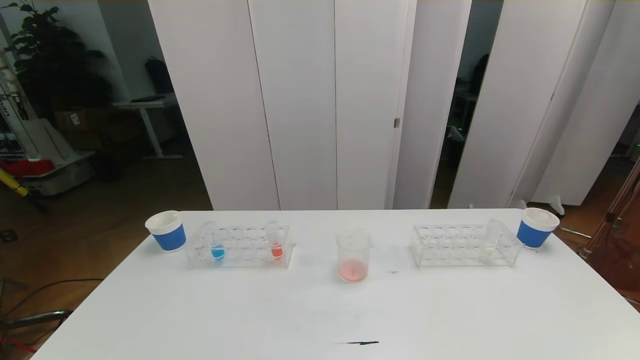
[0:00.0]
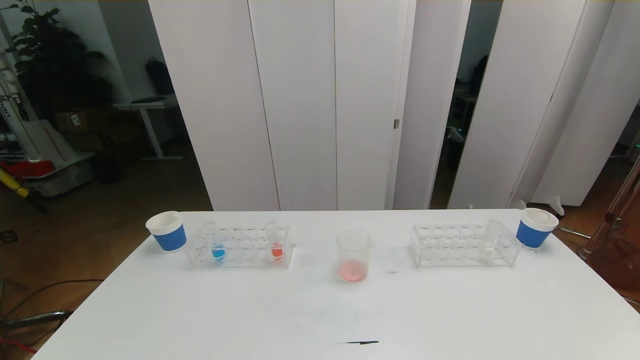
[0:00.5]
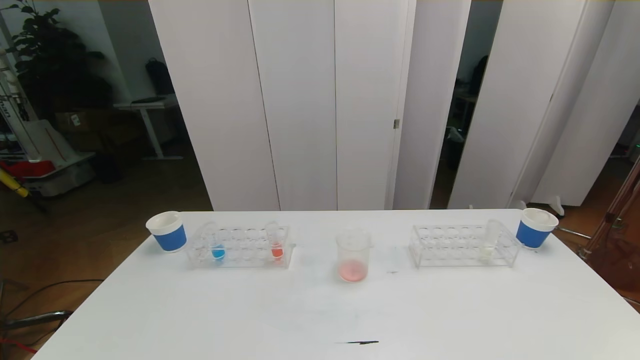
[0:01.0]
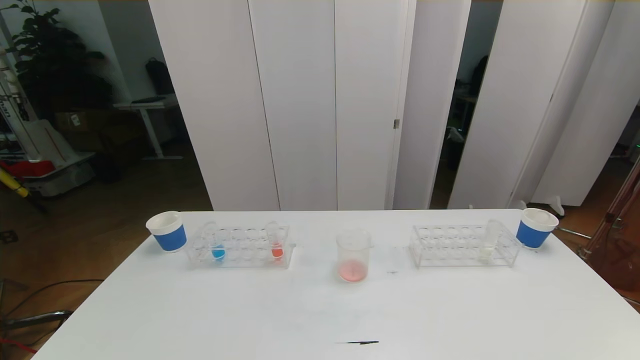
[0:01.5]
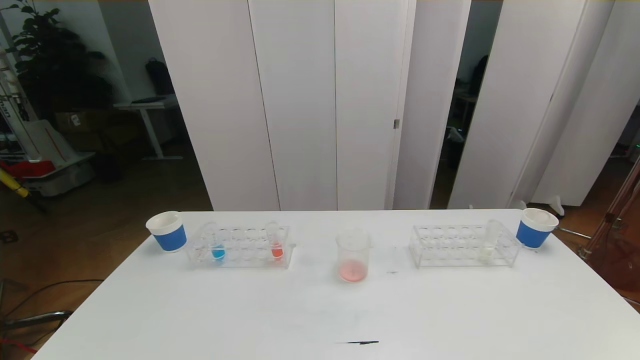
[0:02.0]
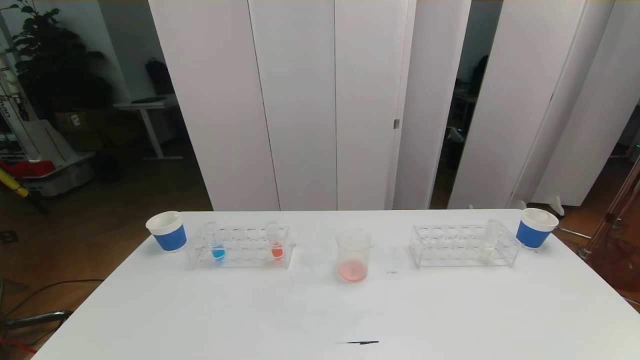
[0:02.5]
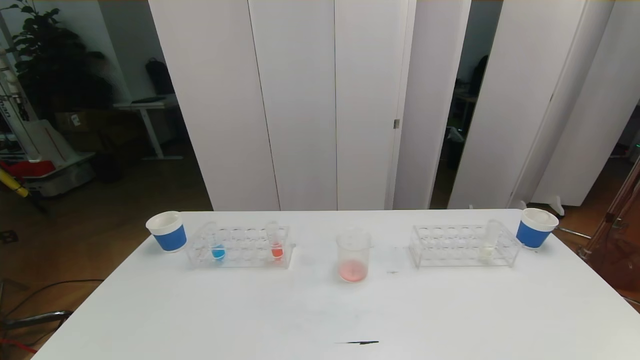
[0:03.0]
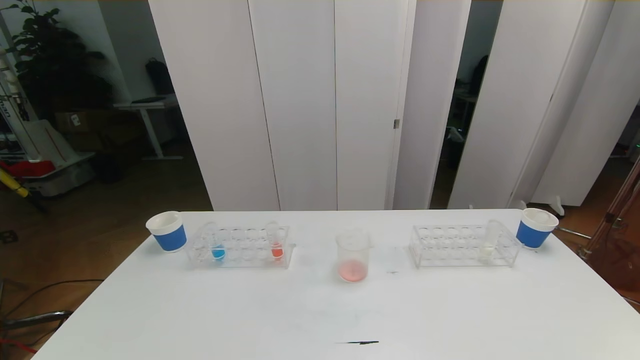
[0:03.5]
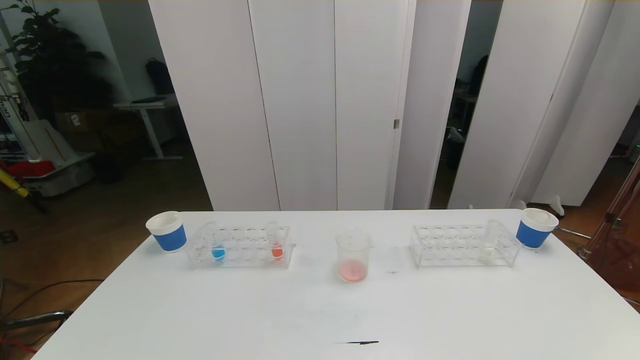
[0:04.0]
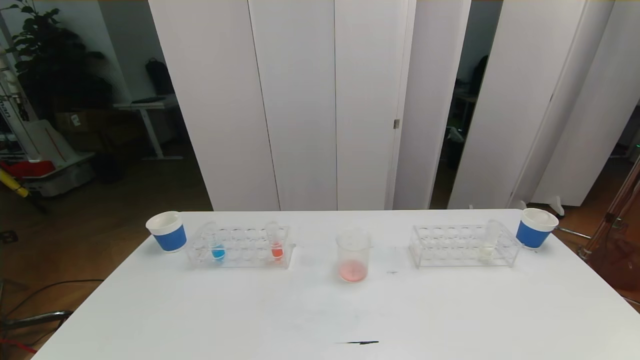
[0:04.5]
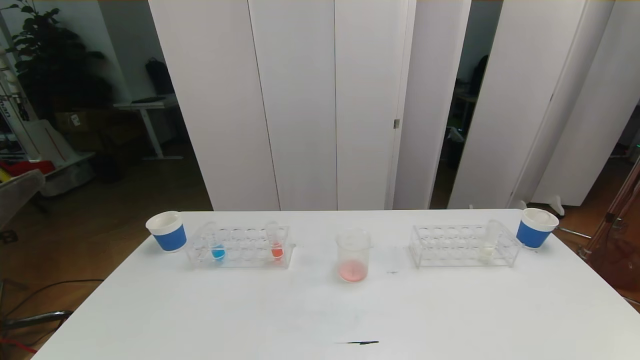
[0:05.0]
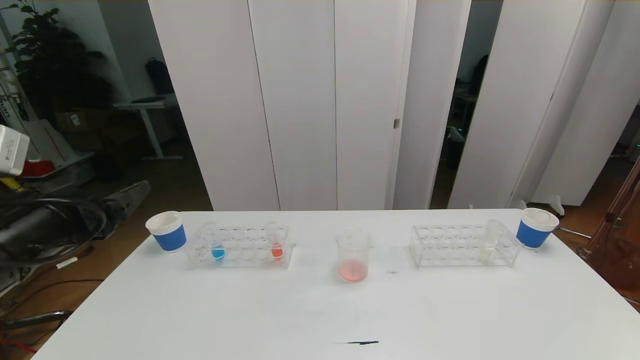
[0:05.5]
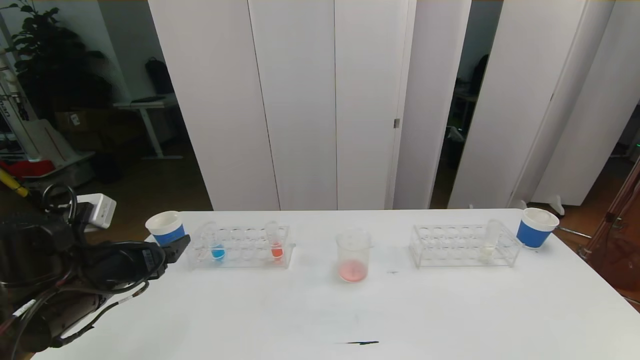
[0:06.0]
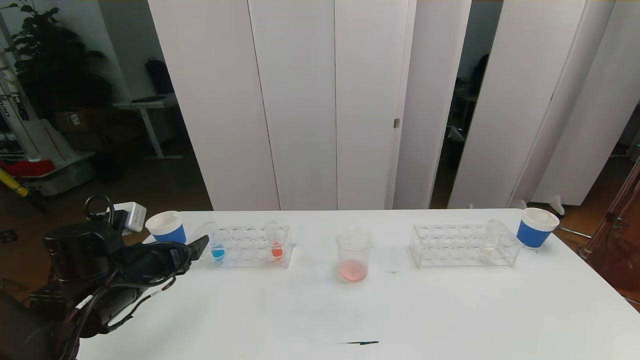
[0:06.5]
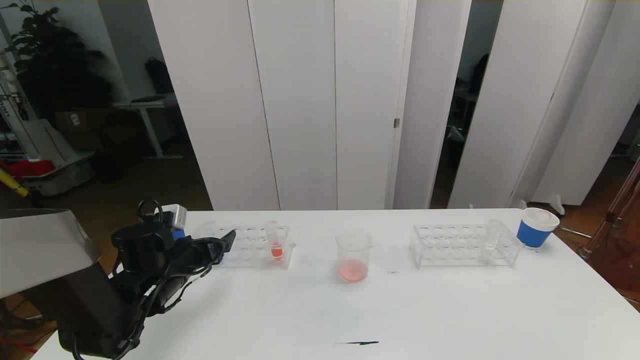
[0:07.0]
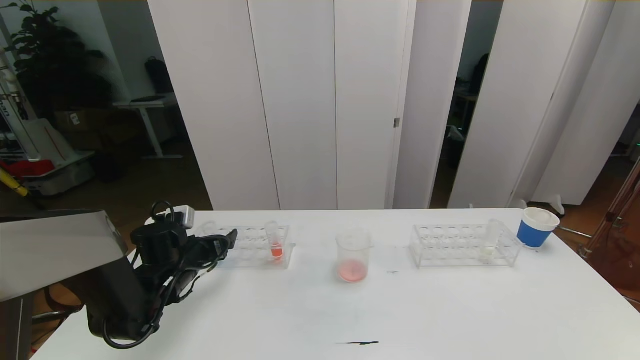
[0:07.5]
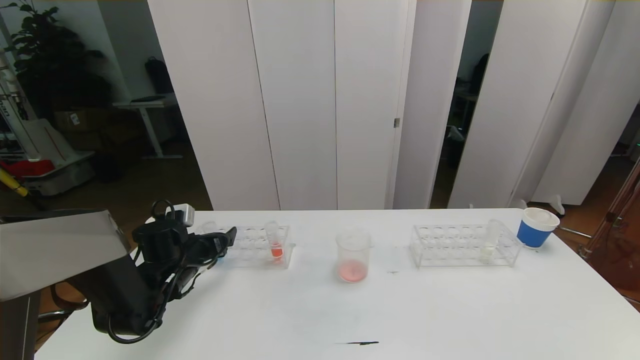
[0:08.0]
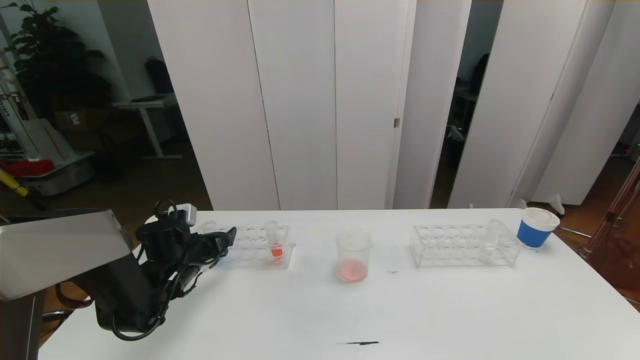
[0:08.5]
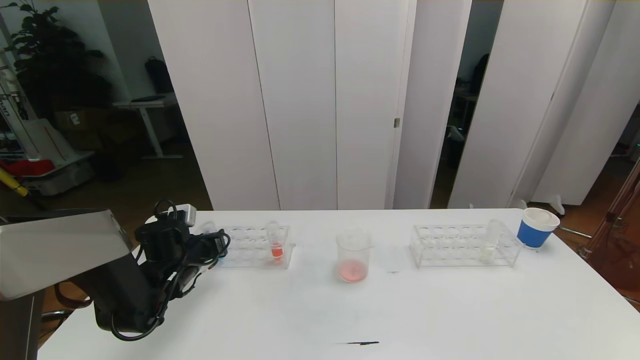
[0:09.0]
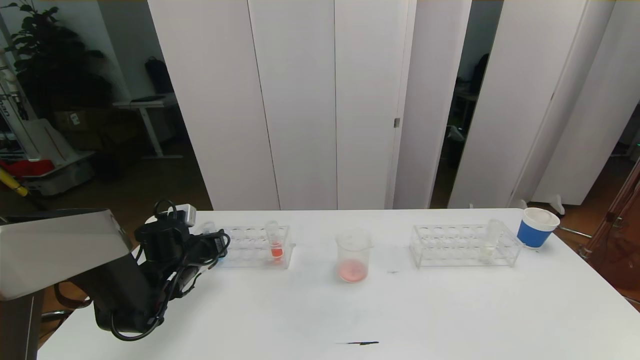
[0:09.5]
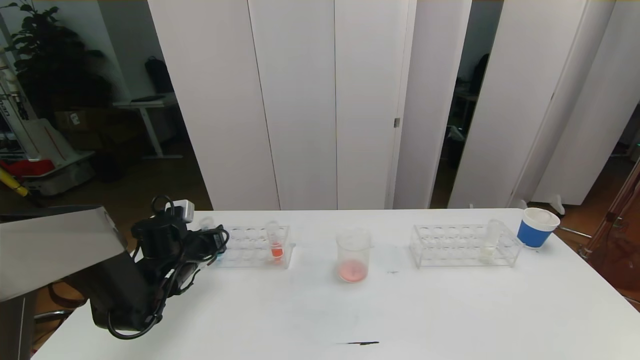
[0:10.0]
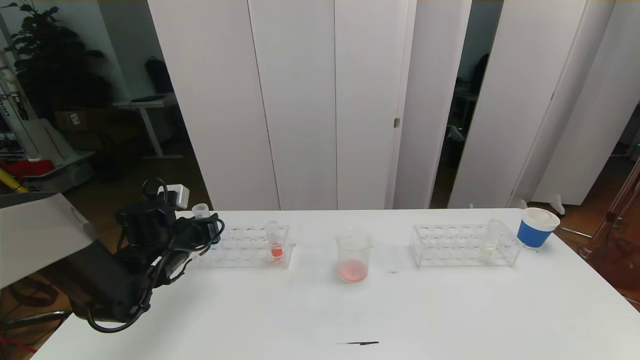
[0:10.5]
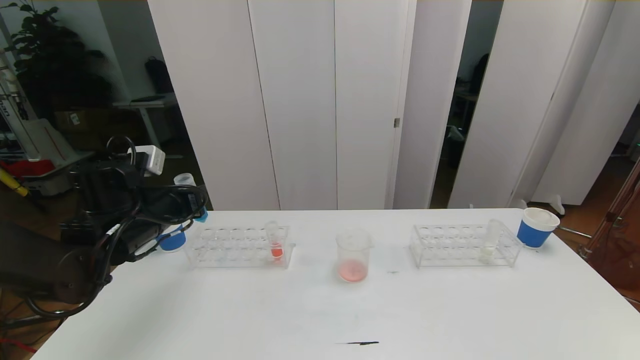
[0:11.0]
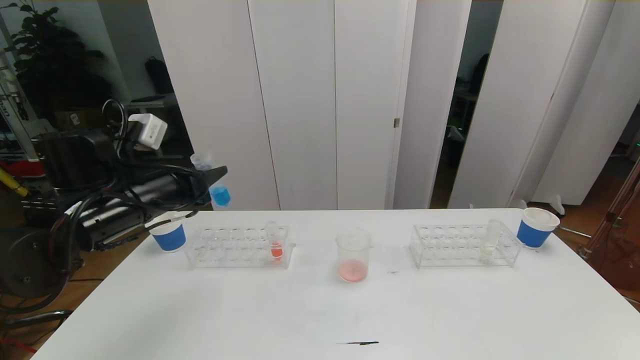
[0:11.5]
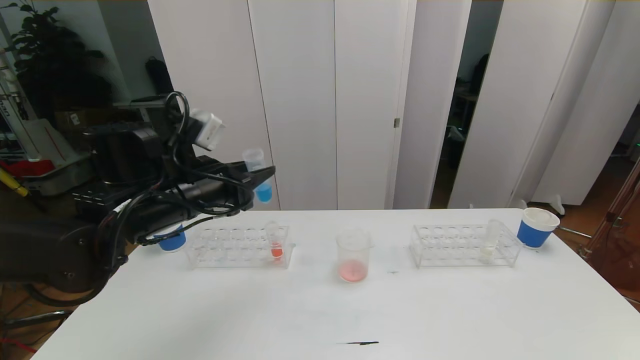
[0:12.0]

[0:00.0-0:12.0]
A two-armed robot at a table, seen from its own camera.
Task of the whole recording: pick up the test tube with red pigment the test tube with blue pigment and the test tube with white pigment by grippers and pour them into the beaker.
4.0 to 6.0 s: The left gripper moves forward, about 25 cm.
6.0 to 8.0 s: The left gripper moves forward and downward, about 15 cm.
8.0 to 10.0 s: The left gripper closes up.
10.0 to 12.0 s: The left gripper shifts approximately 20 cm upward and to the right.

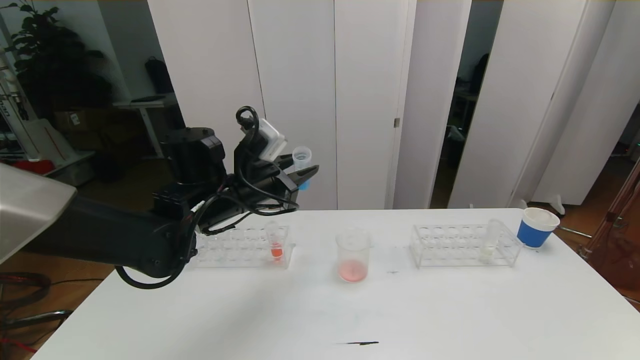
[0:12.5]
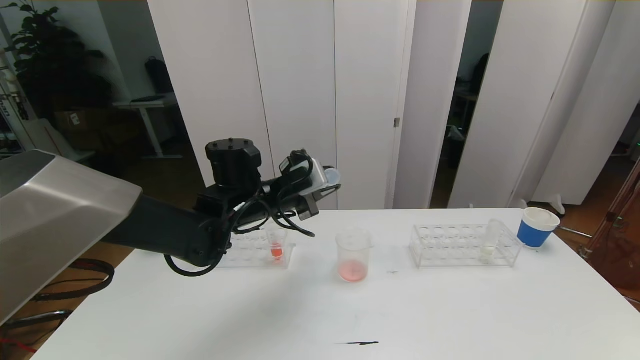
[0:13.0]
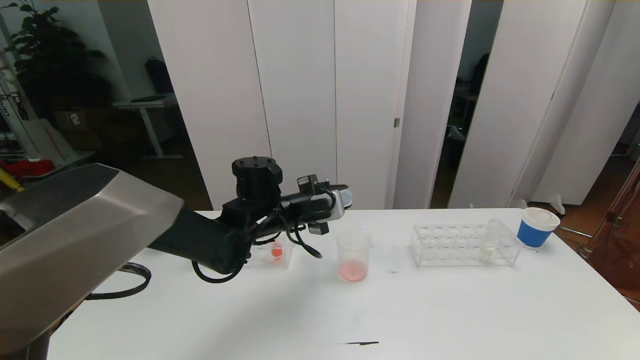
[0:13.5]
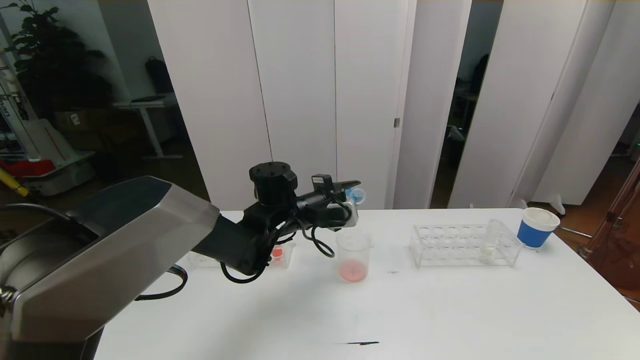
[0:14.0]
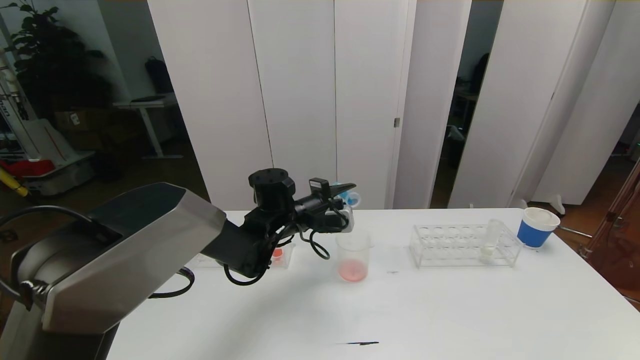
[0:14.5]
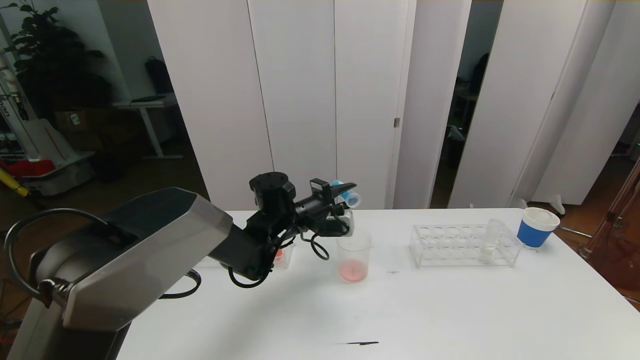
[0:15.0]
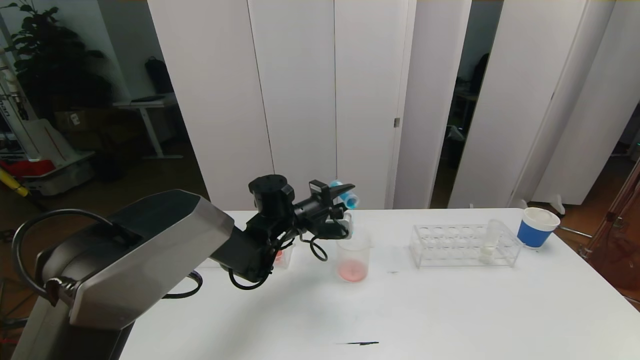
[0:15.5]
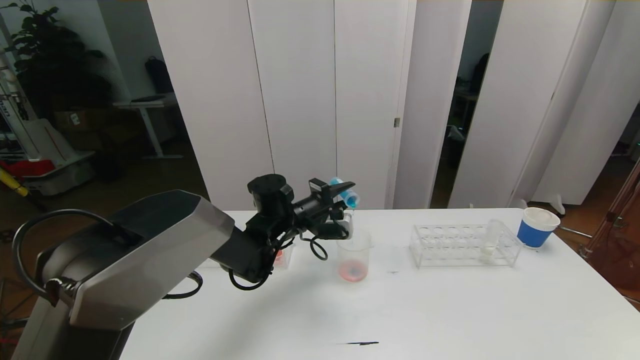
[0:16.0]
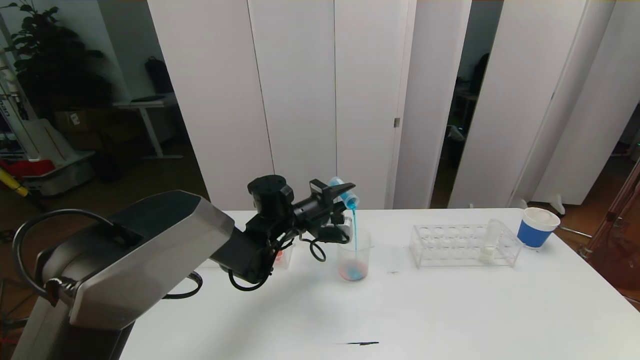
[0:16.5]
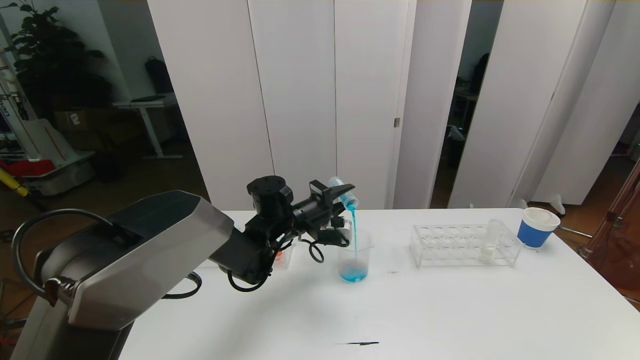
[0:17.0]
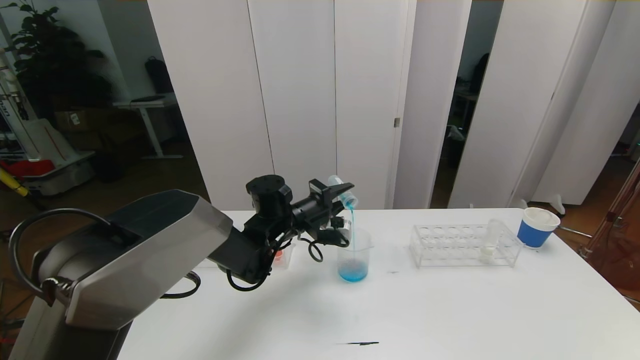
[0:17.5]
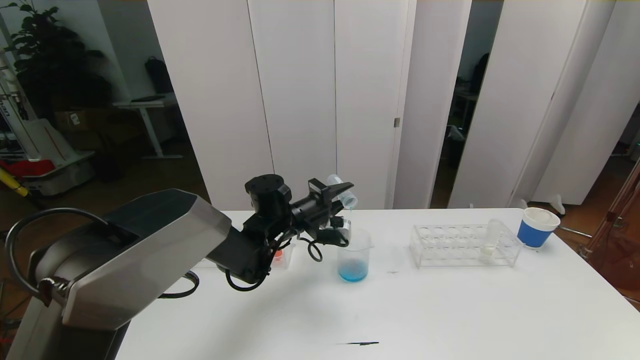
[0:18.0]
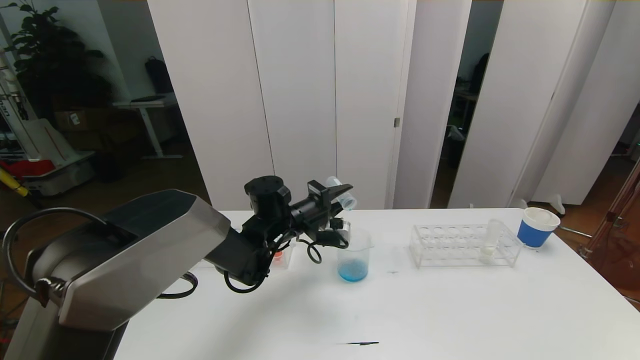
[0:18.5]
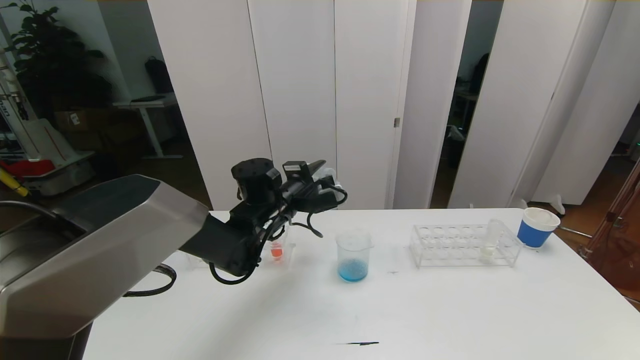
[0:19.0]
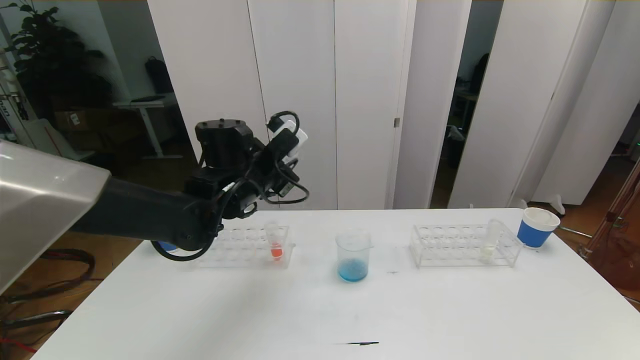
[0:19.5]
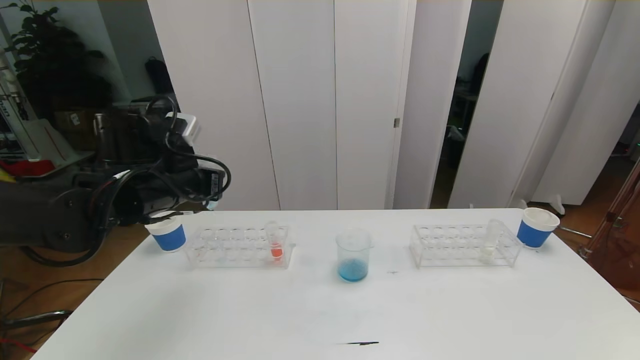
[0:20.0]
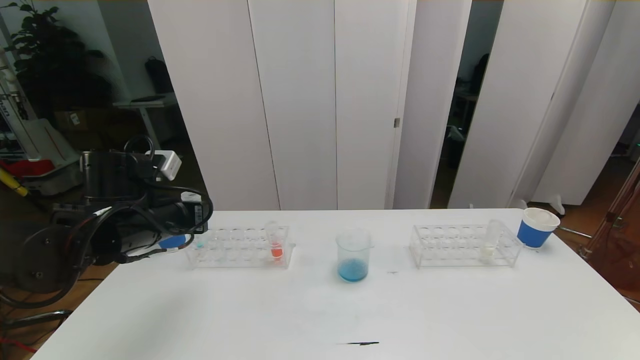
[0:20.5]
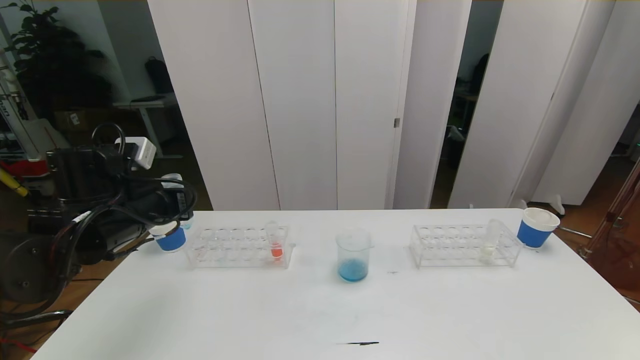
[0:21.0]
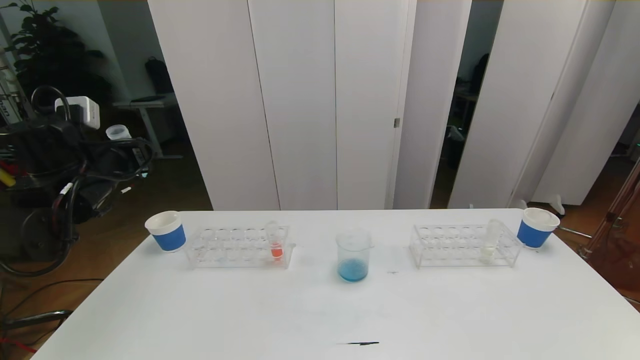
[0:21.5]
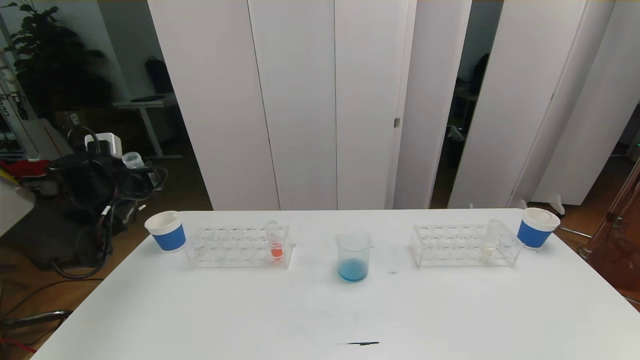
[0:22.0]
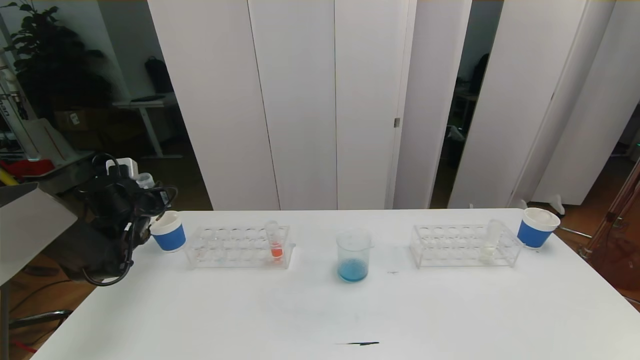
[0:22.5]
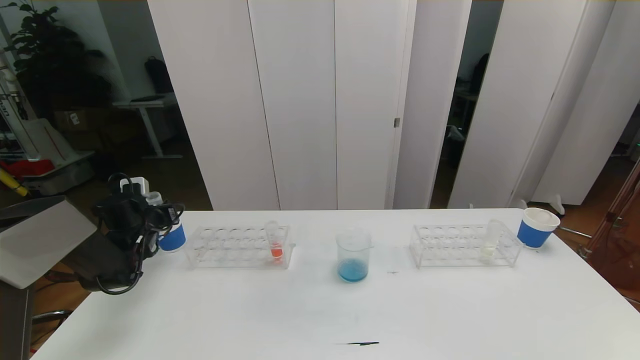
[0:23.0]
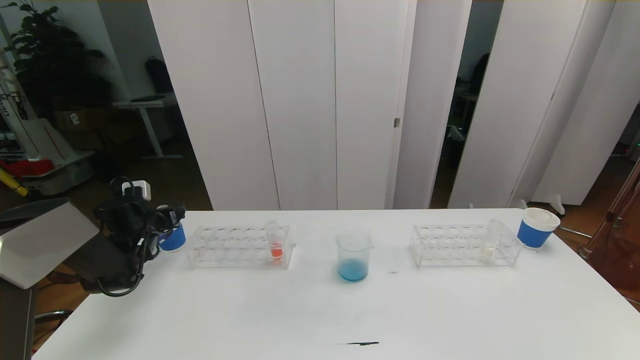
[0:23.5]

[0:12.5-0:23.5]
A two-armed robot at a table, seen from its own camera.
Task of the whole recording: pick up the test tube with red pigment the test tube with blue pigment and the test tube with white pigment by grippers and pour them into the beaker.
12.5 to 14.5 s: The left gripper goes some 10 cm downward, to the right and forward.
14.5 to 18.0 s: The grippers make only small movements.
18.0 to 20.0 s: The left gripper goes approximately 20 cm to the left, upward and backward.
20.0 to 21.5 s: The left gripper shifts about 10 cm to the left.
21.5 to 23.5 s: The left gripper heads downward and forward, covering approximately 20 cm, and opens.
